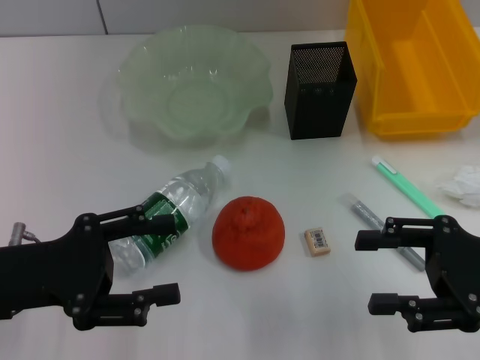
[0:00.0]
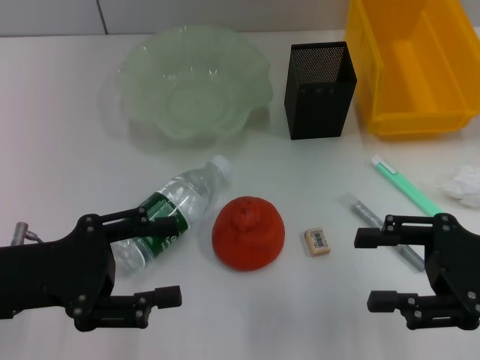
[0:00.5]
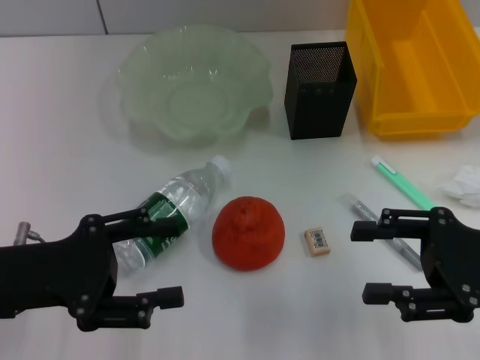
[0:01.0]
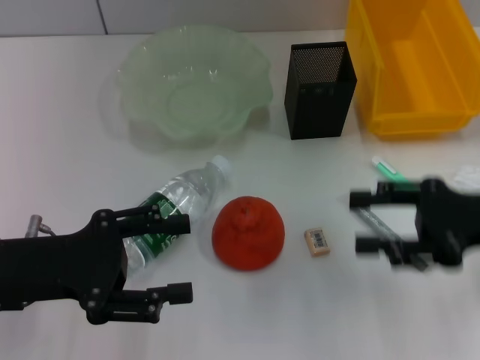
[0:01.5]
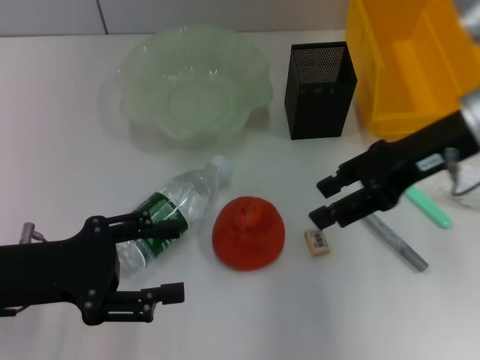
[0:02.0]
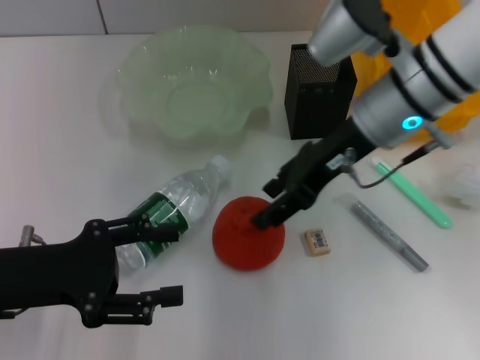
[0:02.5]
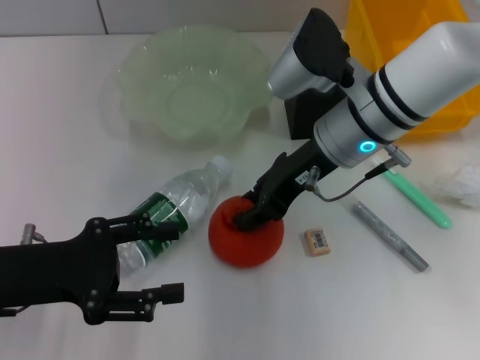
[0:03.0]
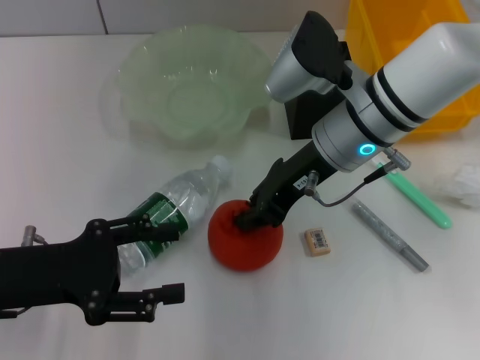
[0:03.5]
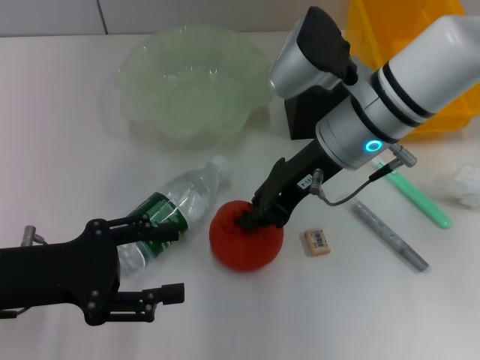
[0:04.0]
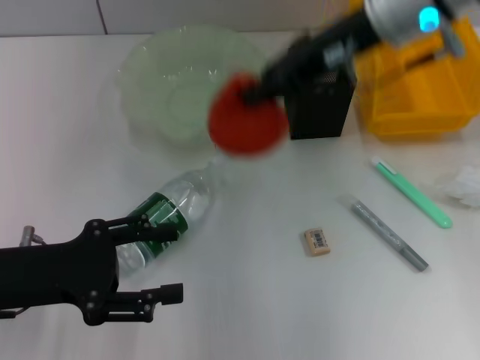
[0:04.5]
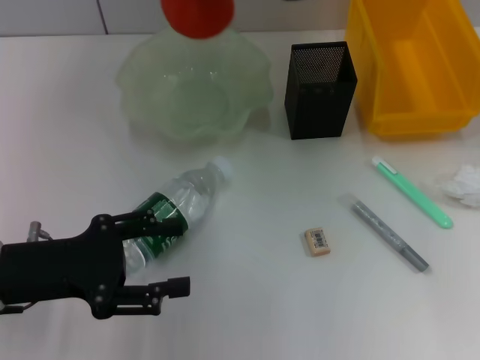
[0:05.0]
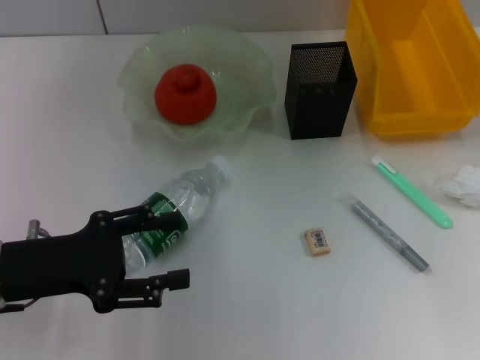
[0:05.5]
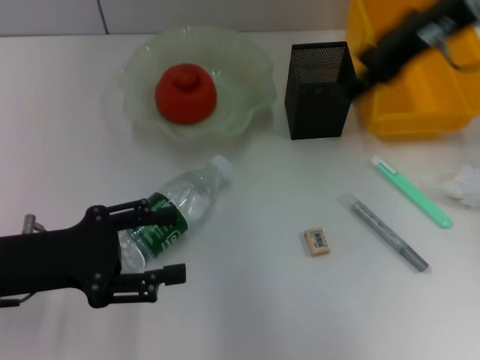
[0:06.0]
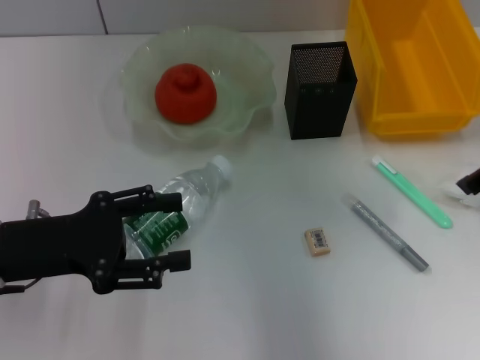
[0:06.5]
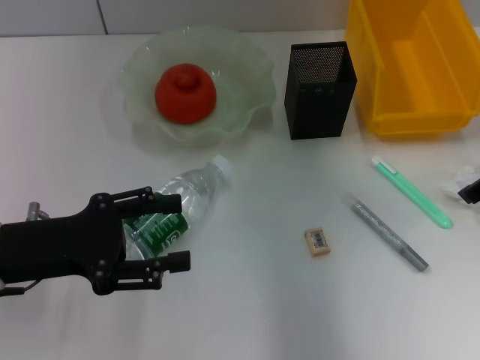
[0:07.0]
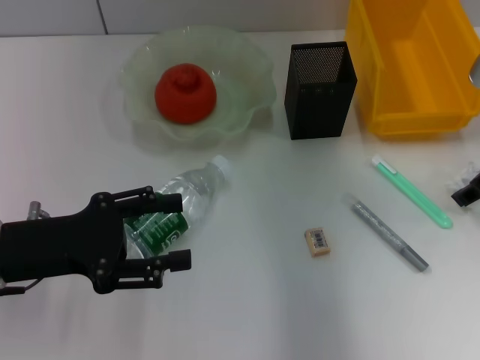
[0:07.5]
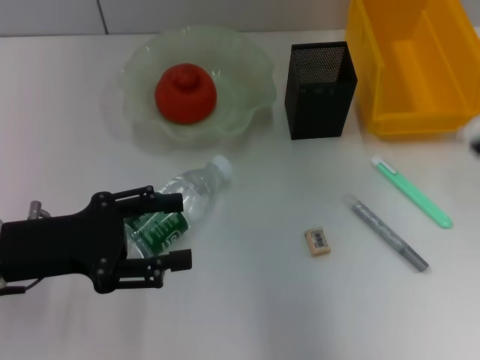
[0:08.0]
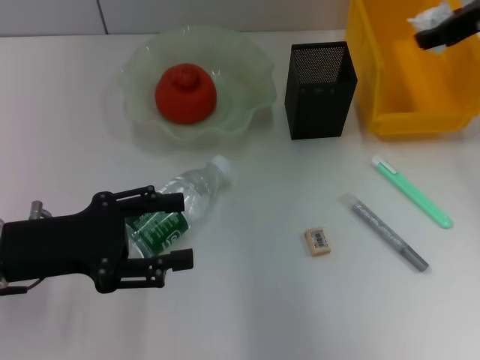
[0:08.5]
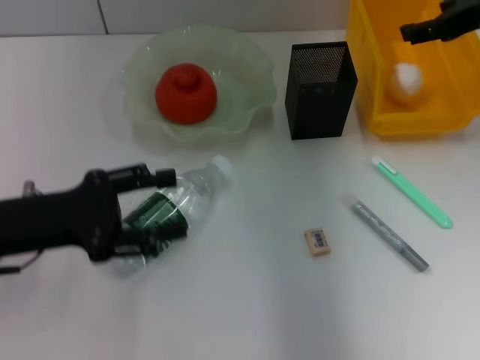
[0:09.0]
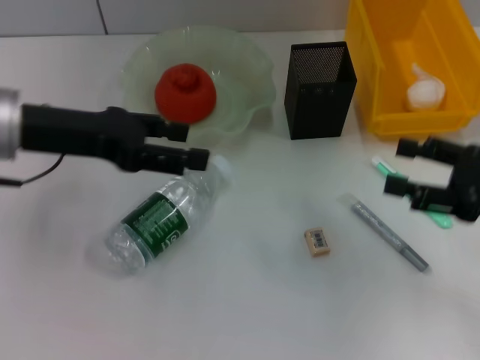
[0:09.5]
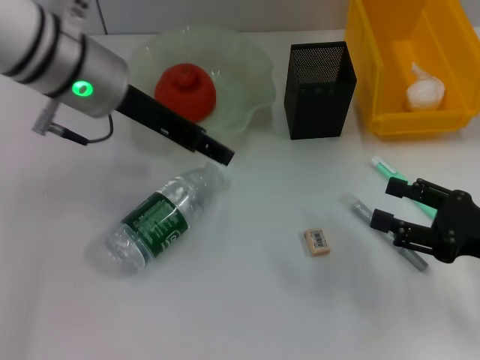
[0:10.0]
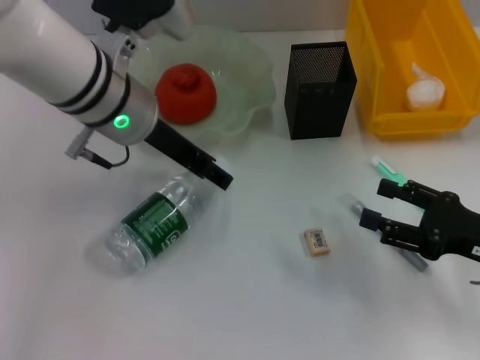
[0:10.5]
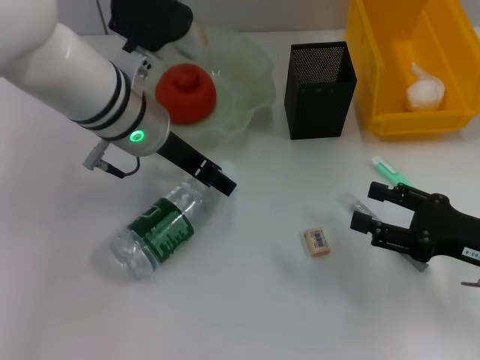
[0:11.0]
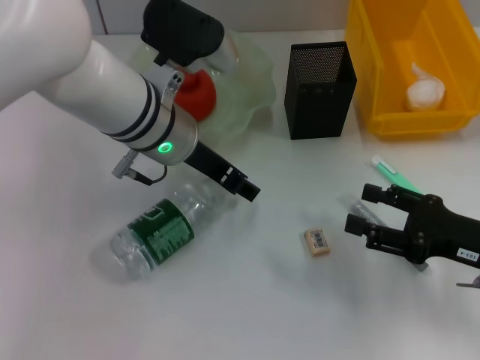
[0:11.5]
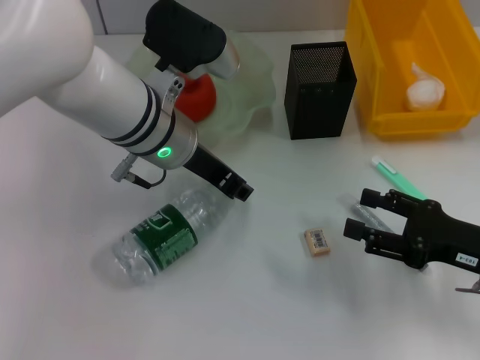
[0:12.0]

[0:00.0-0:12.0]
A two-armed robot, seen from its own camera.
Step, 0:00.0 to 0:03.5: Grab the orange with the right hand.
Step, 0:04.0 to 0:05.0: Place the orange into the fruit bowl with the right hand.
Step, 0:05.5 to 0:07.5: Grab the paper ball with the right hand.
Step, 0:08.0 to 0:08.5: Place the paper ball into the trash can with the right hand.
Step, 0:09.0 to 0:12.0: Grab the water bottle with the left hand.
0:00.0 to 0:02.0: The right gripper is displaced forward, upward and to the left by about 15 cm.
0:02.0 to 0:04.0: The right gripper goes some 10 cm to the left, and closes up.
0:04.0 to 0:06.0: The right gripper goes some 15 cm upward and to the right, and opens.
0:06.0 to 0:08.0: The right gripper travels to the right and downward by about 10 cm.
0:08.0 to 0:10.0: The right gripper heads downward and backward, covering some 20 cm, and opens its fingers. The left gripper travels forward, to the right and upward by about 20 cm.
0:10.0 to 0:12.0: The left gripper travels downward and to the right by some 10 cm, and closes.

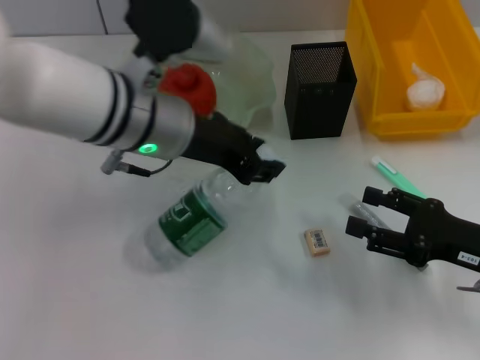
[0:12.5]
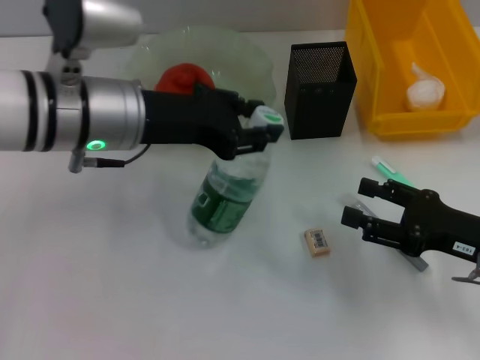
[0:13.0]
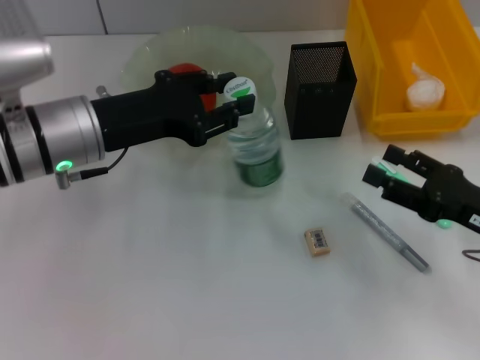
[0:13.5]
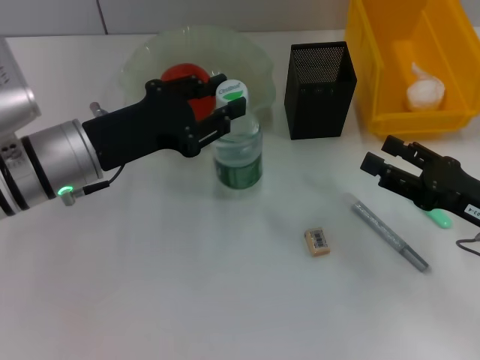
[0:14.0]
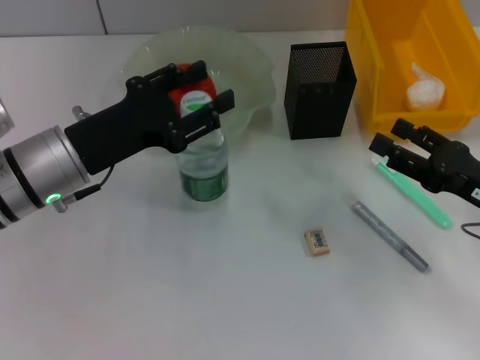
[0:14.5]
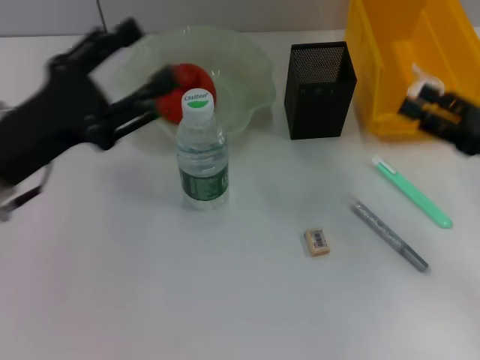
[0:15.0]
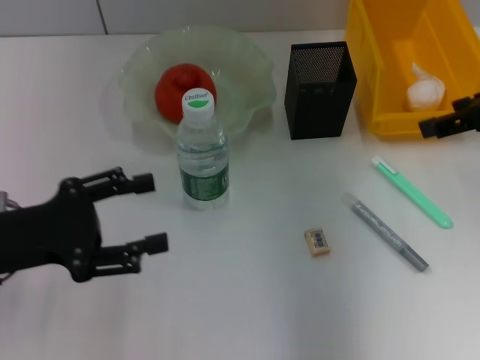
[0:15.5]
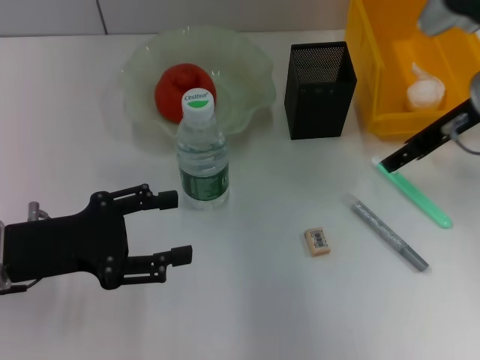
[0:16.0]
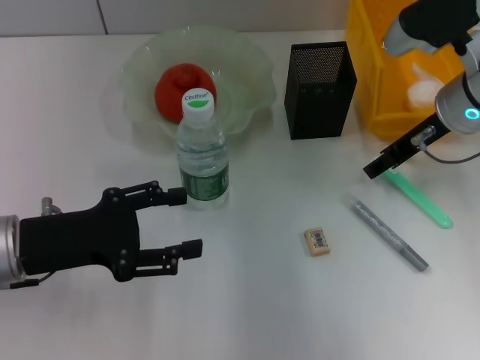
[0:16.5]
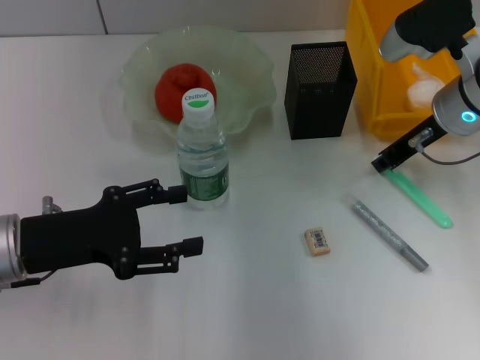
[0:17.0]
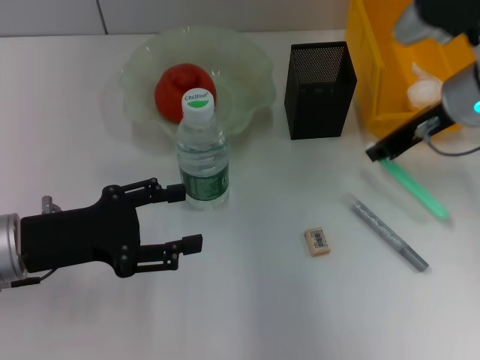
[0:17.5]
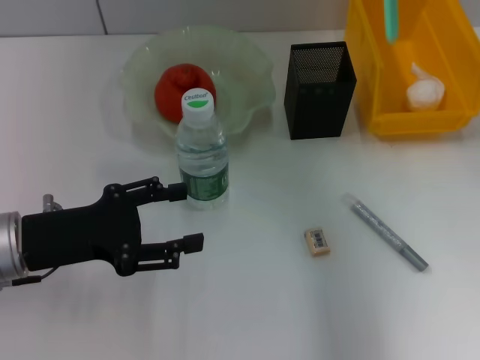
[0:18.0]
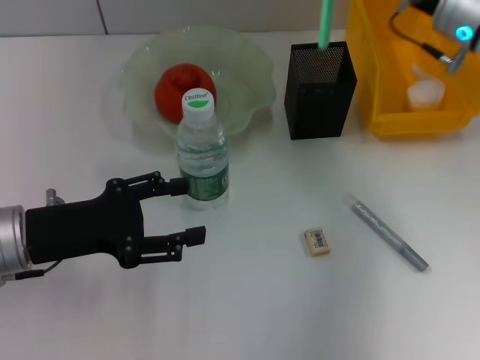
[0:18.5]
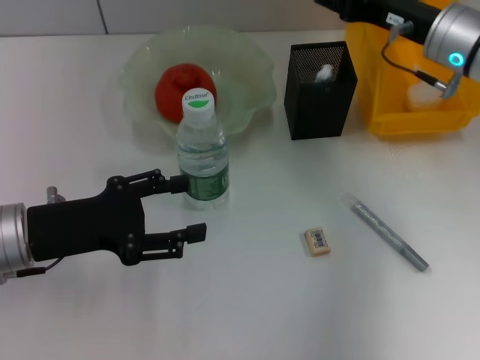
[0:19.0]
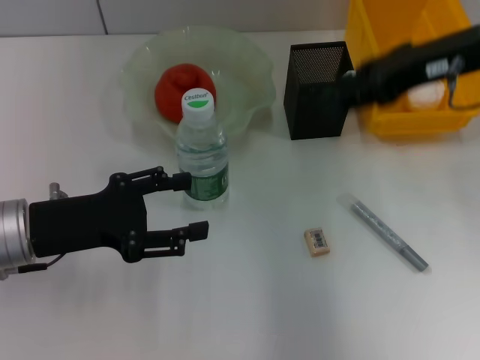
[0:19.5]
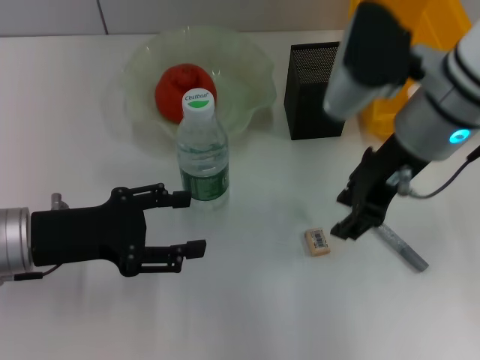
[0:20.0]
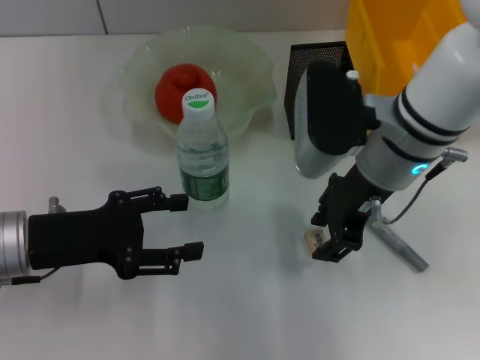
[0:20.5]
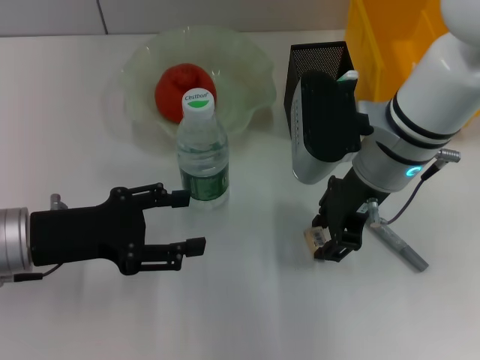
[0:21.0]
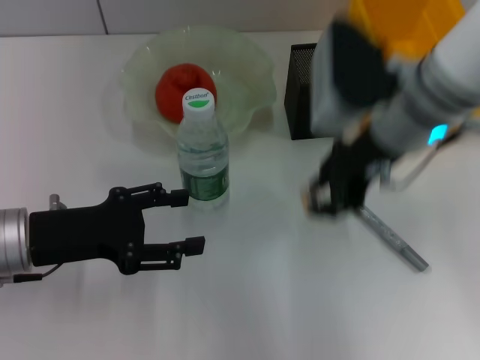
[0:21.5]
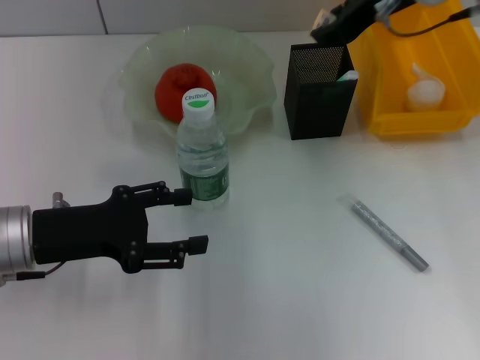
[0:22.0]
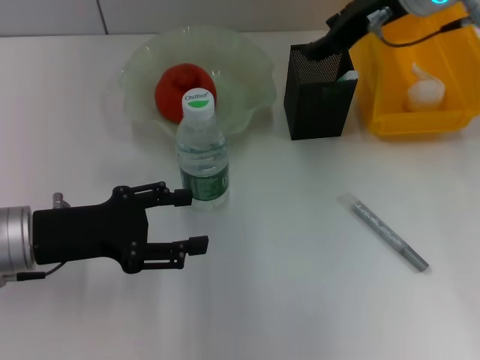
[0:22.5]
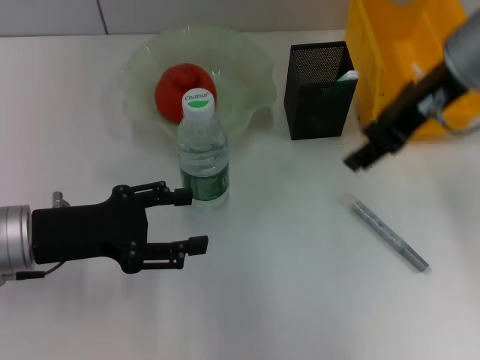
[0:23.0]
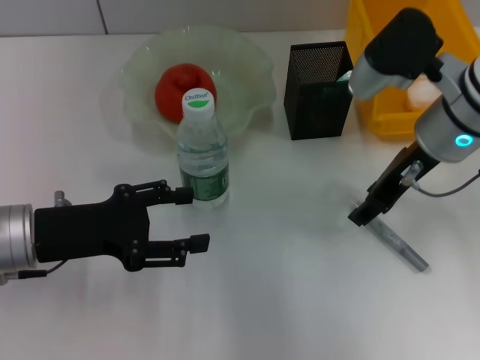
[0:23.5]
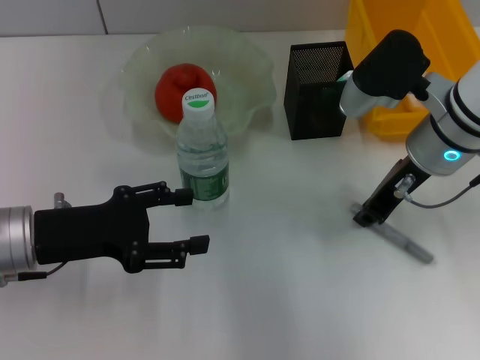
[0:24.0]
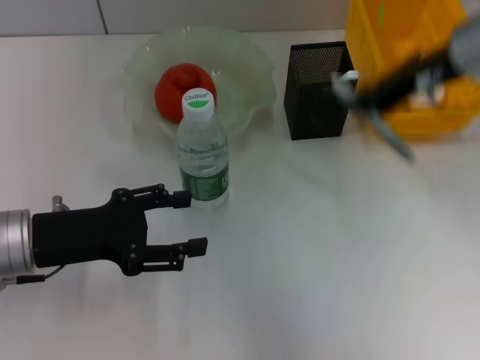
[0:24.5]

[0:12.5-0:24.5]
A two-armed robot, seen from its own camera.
Step, 0:12.5 to 0:14.5: Place the water bottle on the table with the left hand.
Step, 0:15.0 to 0:17.0: Grab the blue utility knife with the right hand.
Step, 0:17.5 to 0:19.0: Place the blue utility knife into the pen holder with the right hand.
Step, 0:19.5 to 0:21.0: Grab the eraser with the right hand.
Step, 0:21.5 to 0:22.0: Put the eraser into the pen holder with the right hand.
Step, 0:22.5 to 0:24.0: Grab the gray glue with the right hand.
0:12.5 to 0:14.5: The left gripper is displaced to the left and downward by some 10 cm.
0:14.5 to 0:16.5: The left gripper is displaced backward and to the left by some 10 cm, and opens up, while the right gripper shifts approximately 20 cm forward, upward and to the left.
0:16.5 to 0:18.5: The right gripper reaches some 10 cm upward, then returns, and closes.
0:18.5 to 0:20.5: The right gripper shifts about 15 cm to the left and backward, and opens.
0:20.5 to 0:22.5: The right gripper moves forward and upward, some 15 cm.
0:22.5 to 0:24.5: The right gripper travels backward by approximately 5 cm, reaches approximately 10 cm downward, then returns, and closes up.

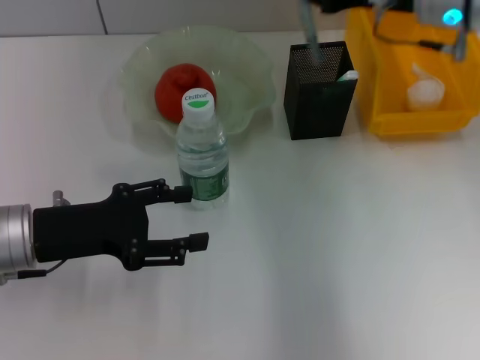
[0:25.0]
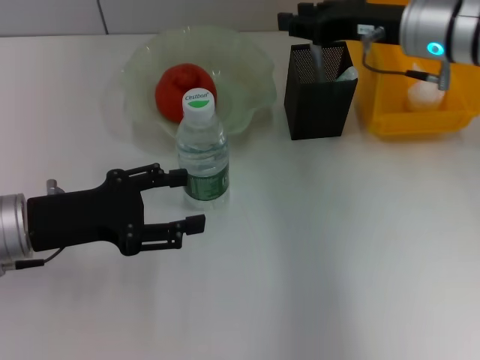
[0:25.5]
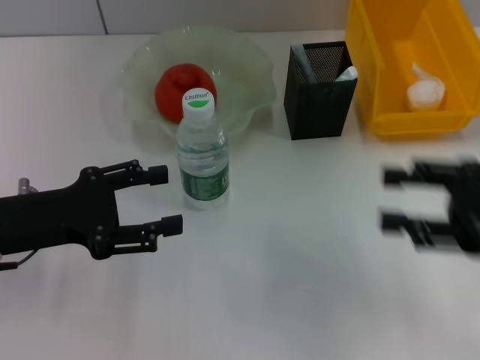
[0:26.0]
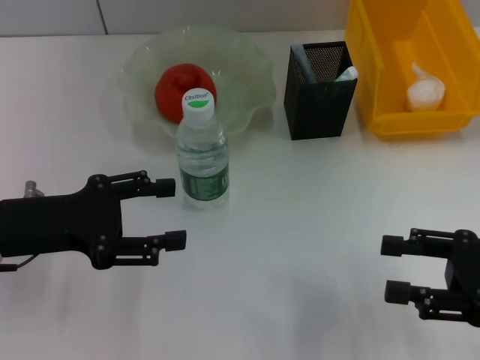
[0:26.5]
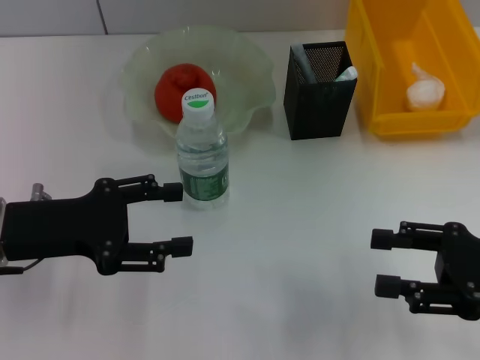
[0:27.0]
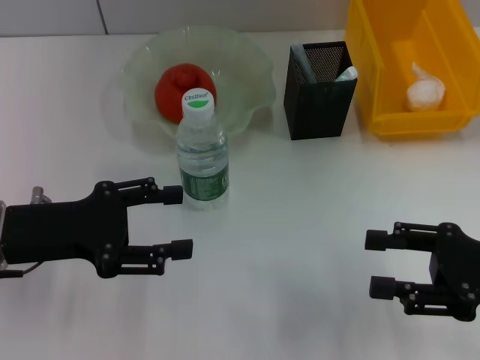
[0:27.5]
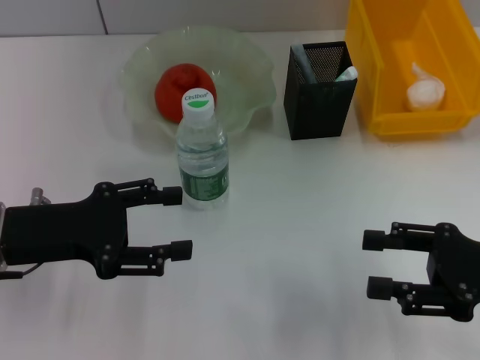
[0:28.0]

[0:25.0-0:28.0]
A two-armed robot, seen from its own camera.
0:25.0 to 0:26.5: The right gripper is displaced backward, to the right and downward by about 25 cm, and opens.
0:26.5 to 0:28.0: The grippers move only a little.
